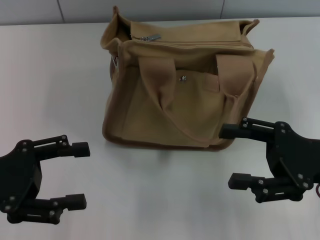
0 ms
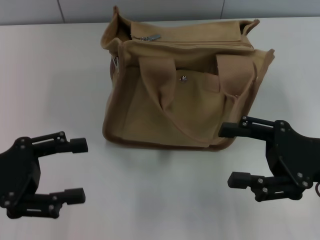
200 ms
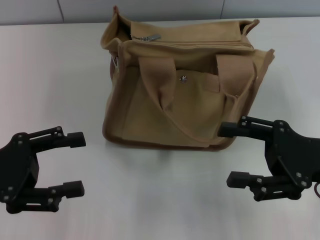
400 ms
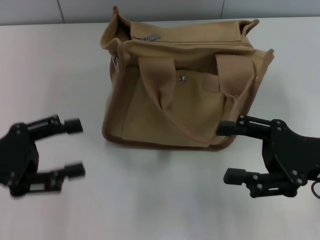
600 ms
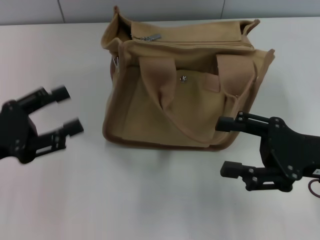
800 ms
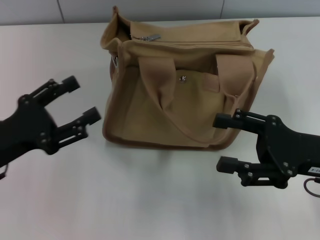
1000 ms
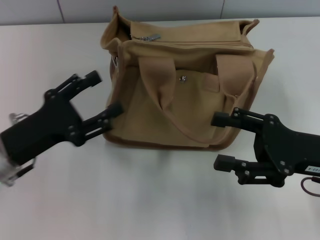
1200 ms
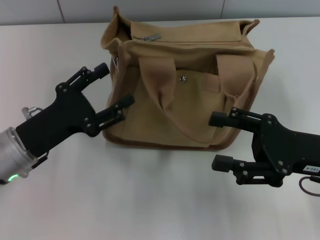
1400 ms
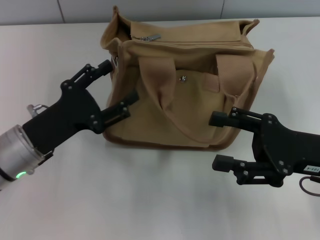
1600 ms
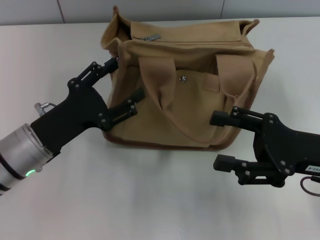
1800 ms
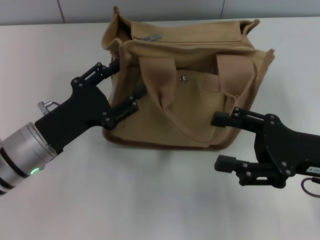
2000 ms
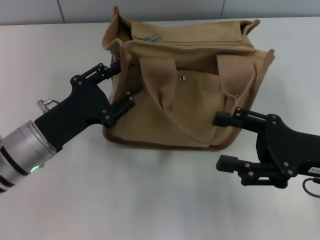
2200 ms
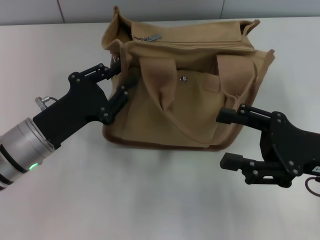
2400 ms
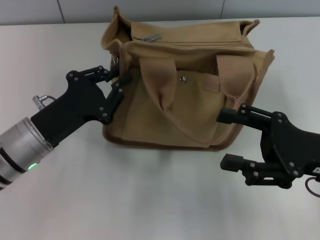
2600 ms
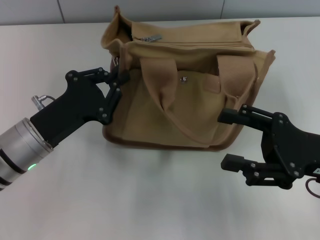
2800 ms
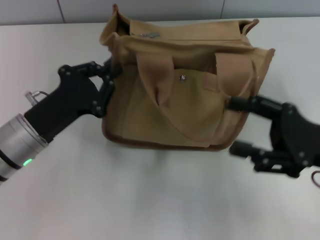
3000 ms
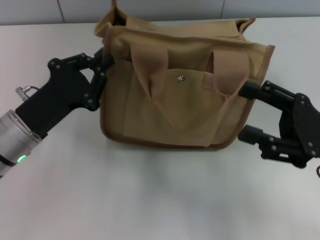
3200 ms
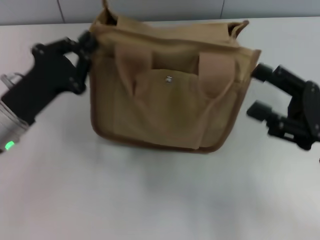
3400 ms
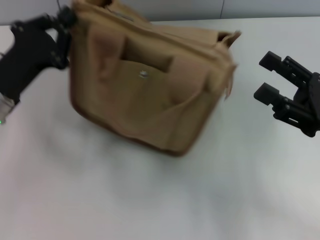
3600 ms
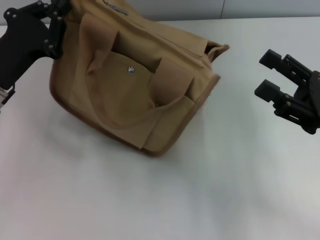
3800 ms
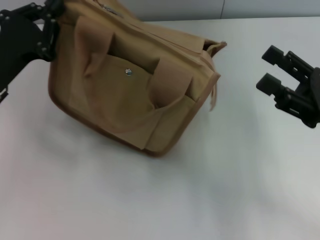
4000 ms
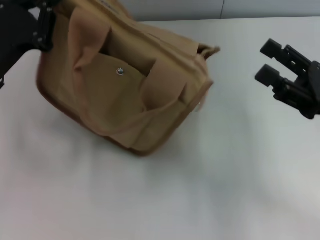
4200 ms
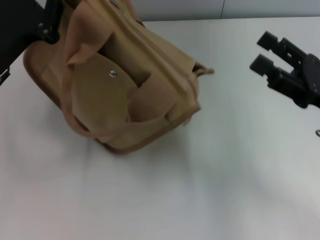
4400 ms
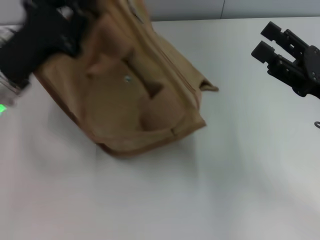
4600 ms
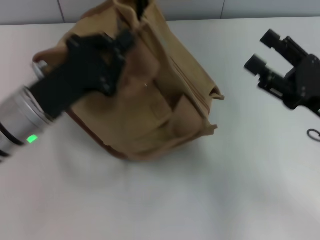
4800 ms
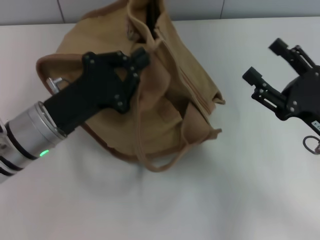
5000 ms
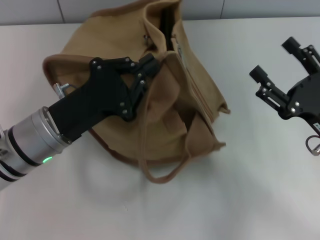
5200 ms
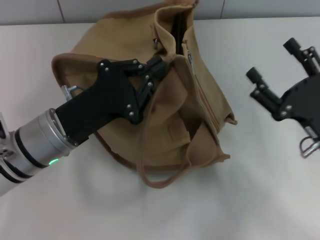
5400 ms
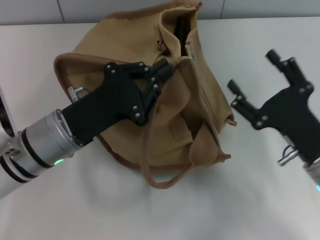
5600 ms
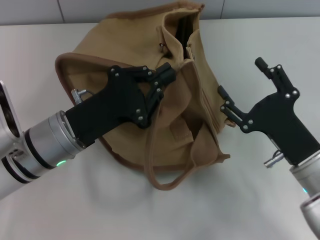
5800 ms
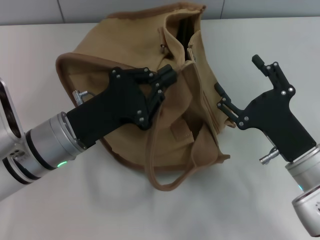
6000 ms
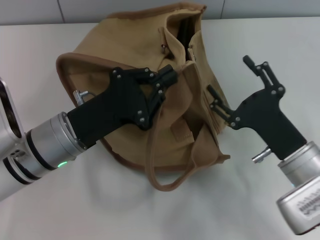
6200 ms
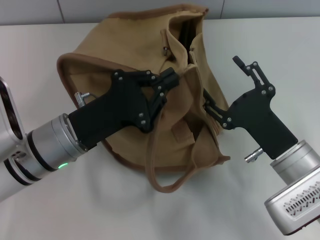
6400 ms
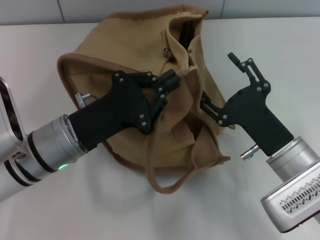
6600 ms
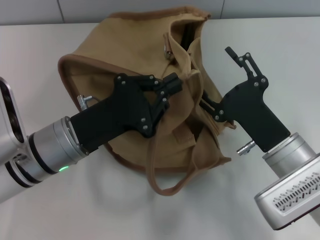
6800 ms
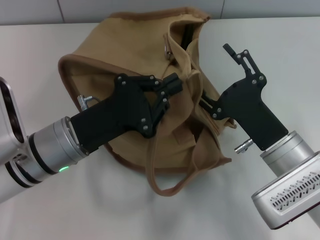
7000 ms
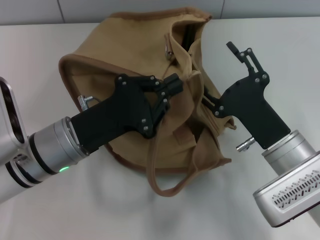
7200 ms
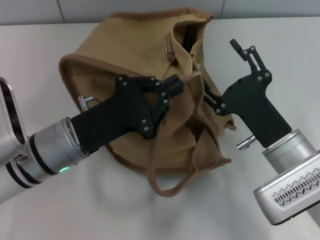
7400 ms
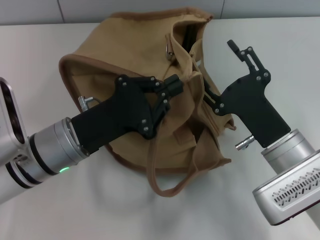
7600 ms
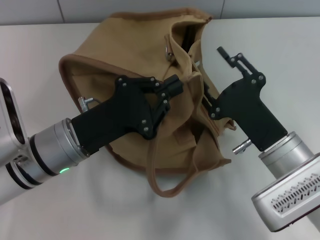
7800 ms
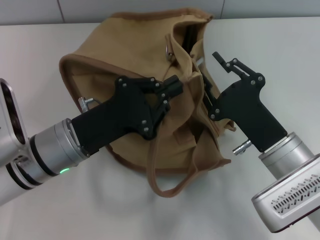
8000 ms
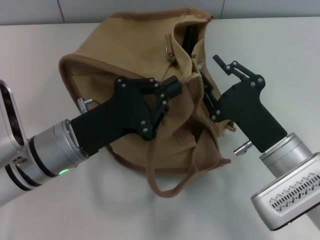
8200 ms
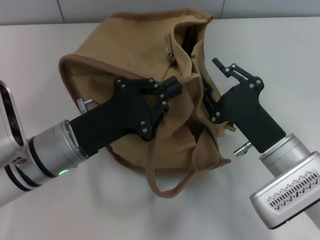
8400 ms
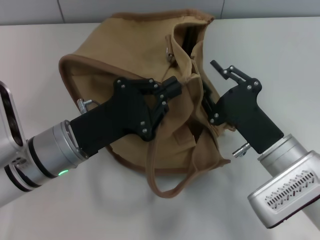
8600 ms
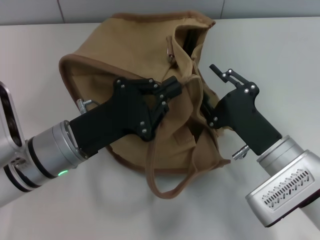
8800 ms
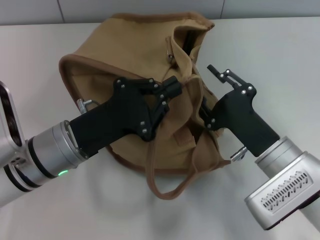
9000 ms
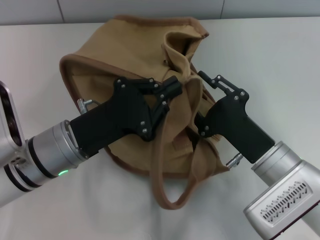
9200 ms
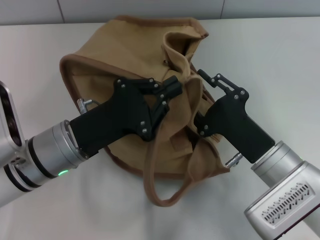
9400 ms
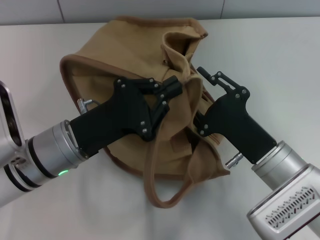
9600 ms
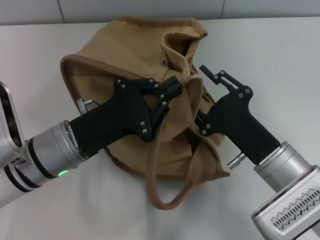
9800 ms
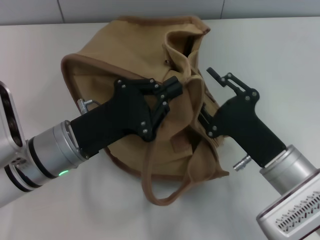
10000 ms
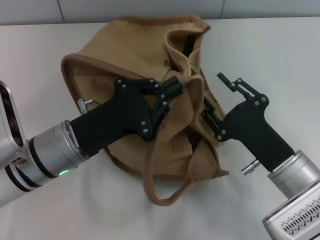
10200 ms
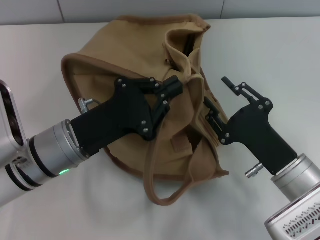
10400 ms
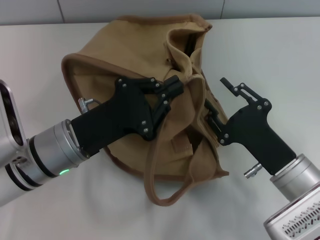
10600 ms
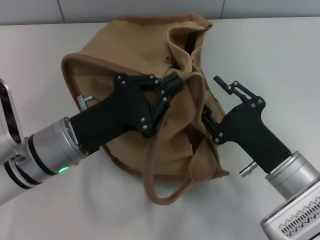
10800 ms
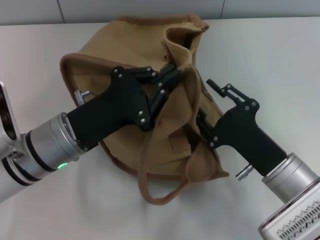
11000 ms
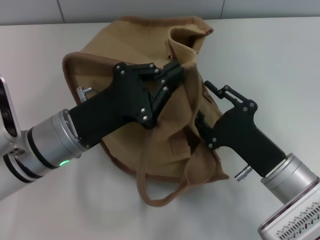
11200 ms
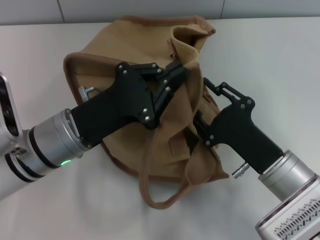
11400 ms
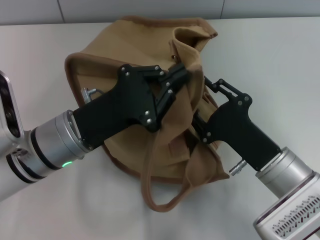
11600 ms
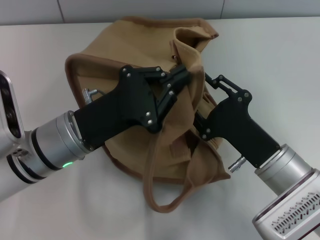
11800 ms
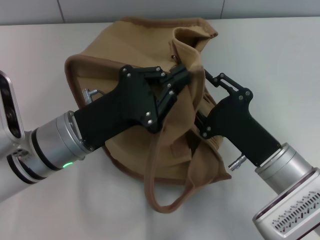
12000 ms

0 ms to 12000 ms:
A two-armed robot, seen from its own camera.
0 ms to 1600 ms: The left gripper moves to the right and downward, some 10 cm.
1600 ms to 3000 ms: The left gripper closes its fingers.
3000 ms to 4400 ms: The left gripper moves upward, roughly 5 cm.
4400 ms to 6000 ms: The left gripper moves to the right and downward, approximately 10 cm, while the right gripper shifts roughly 10 cm to the left and downward.
7600 ms to 9000 ms: The right gripper closes up.
9000 ms to 10400 ms: The grippers move only a little.

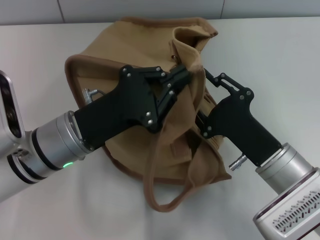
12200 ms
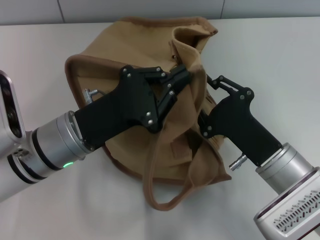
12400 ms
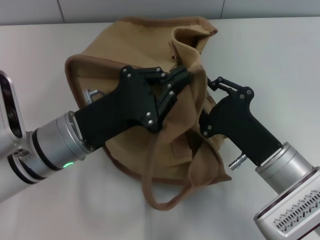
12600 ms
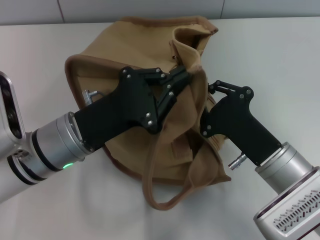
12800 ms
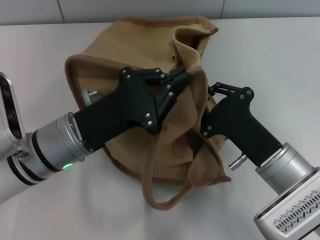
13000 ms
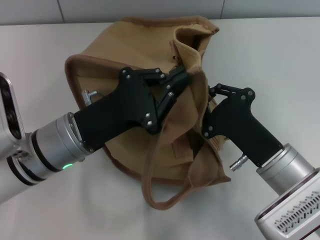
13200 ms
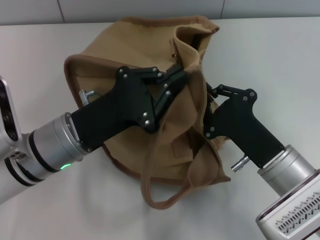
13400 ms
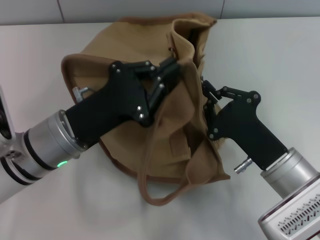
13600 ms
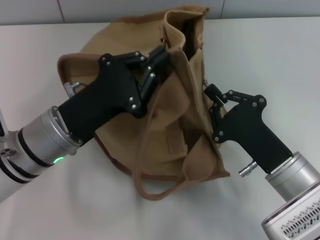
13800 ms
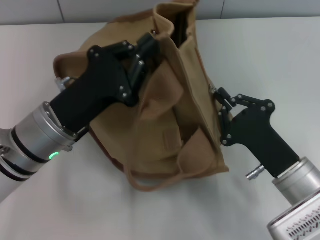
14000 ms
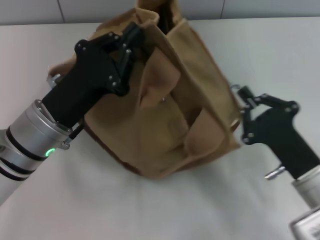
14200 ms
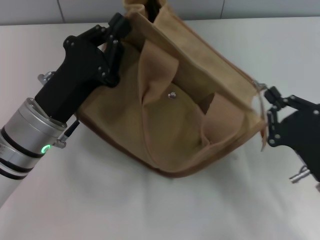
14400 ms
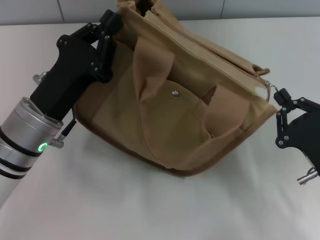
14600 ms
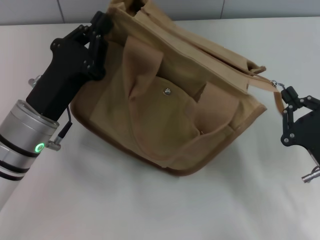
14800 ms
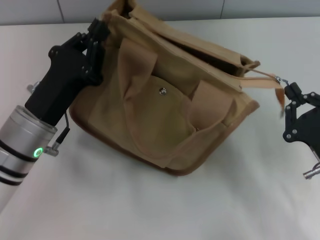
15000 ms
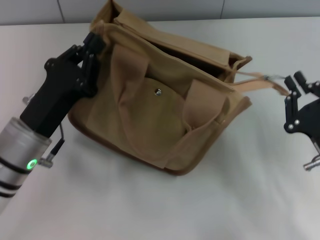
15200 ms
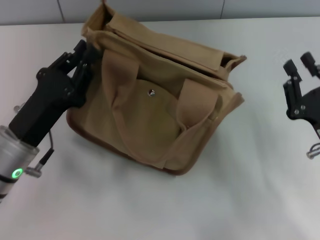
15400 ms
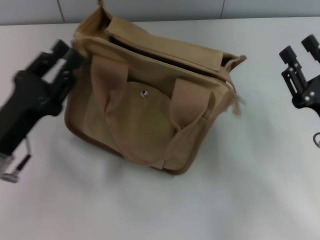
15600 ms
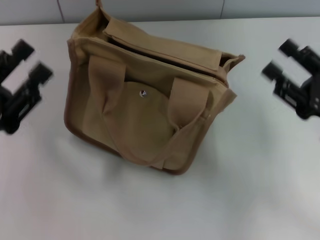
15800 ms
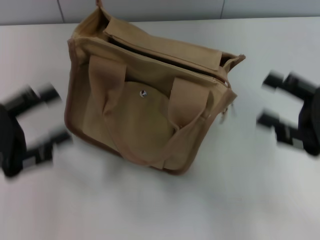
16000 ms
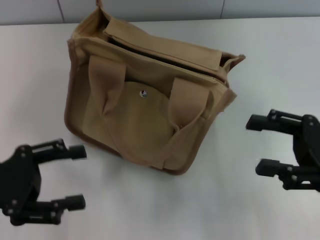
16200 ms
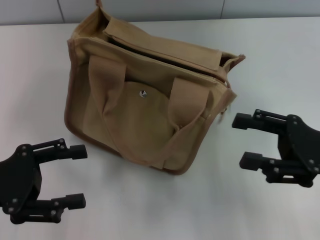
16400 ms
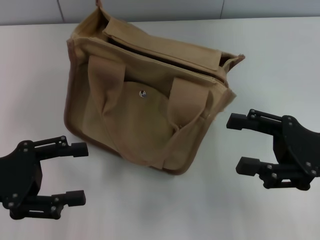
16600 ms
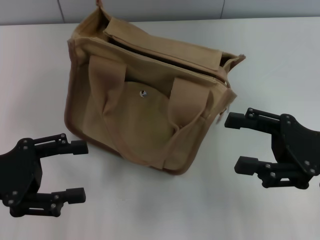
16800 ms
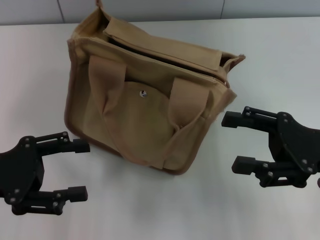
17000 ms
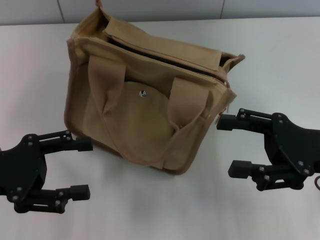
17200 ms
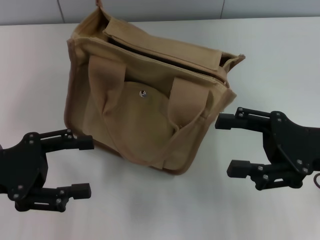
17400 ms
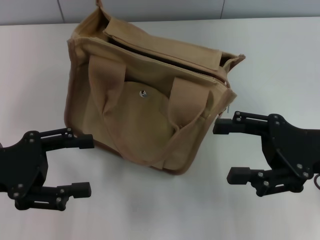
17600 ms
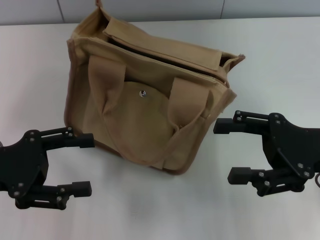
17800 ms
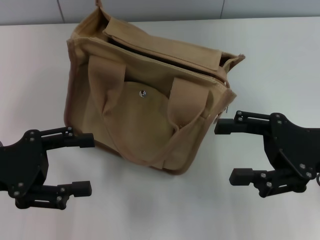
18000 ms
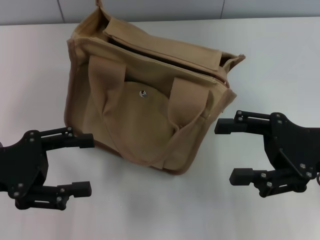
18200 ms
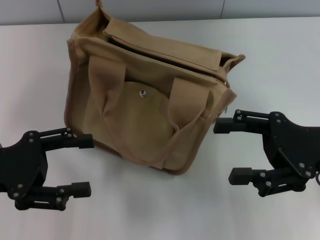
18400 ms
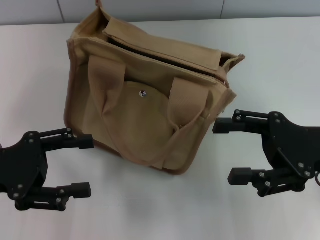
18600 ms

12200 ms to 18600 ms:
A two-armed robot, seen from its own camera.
Step, 12200 ms to 15200 ms: Pull open the zipper with your right hand.
12200 ms to 13800 ms: The right gripper closes its fingers.
13800 ms to 15400 ms: The left gripper moves to the left, roughly 5 cm. The right gripper heads to the right, covering about 5 cm.
15400 ms to 17000 ms: The left gripper heads to the left and upward, covering some 10 cm, and opens up; the right gripper is displaced upward by approximately 5 cm, and opens.
17000 ms to 18600 ms: There are only small adjustments of the grippers.
